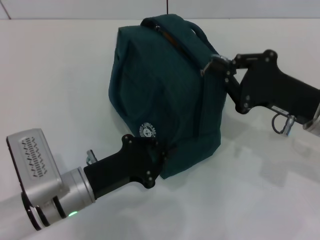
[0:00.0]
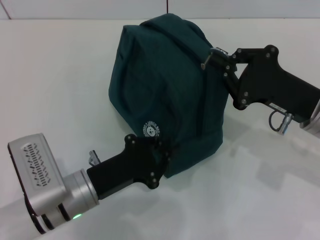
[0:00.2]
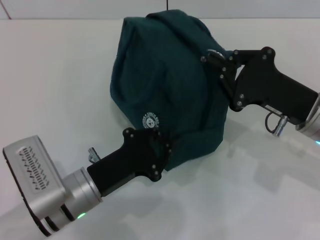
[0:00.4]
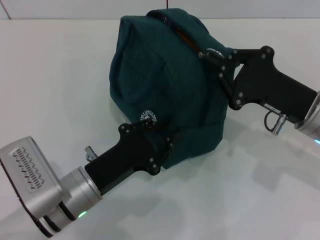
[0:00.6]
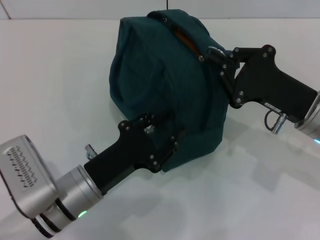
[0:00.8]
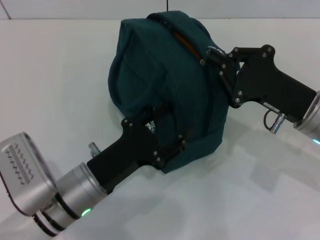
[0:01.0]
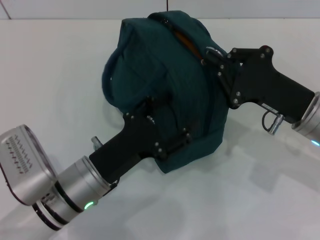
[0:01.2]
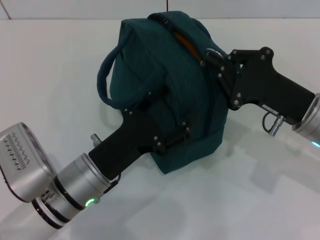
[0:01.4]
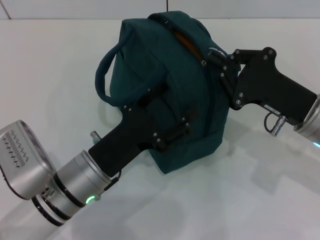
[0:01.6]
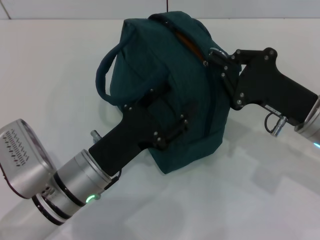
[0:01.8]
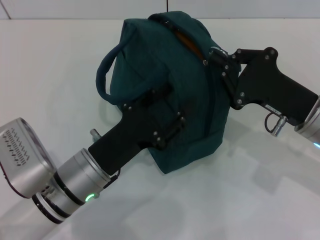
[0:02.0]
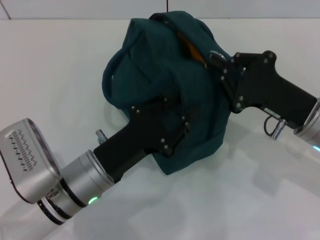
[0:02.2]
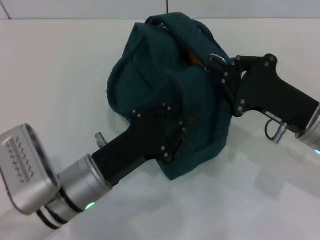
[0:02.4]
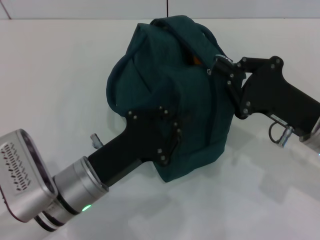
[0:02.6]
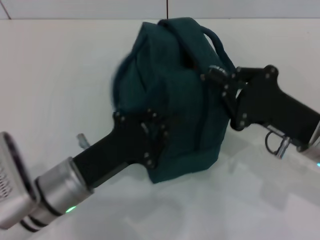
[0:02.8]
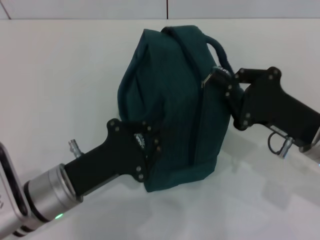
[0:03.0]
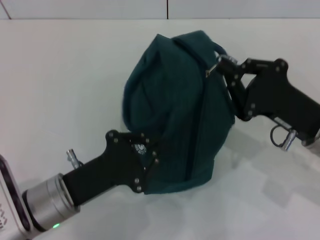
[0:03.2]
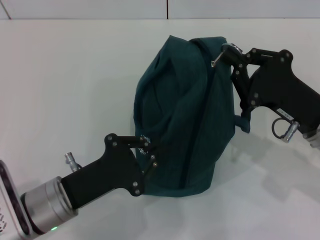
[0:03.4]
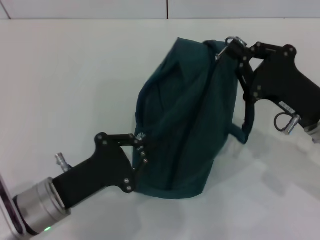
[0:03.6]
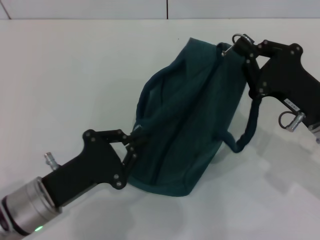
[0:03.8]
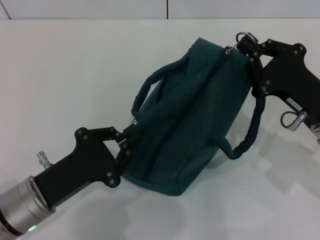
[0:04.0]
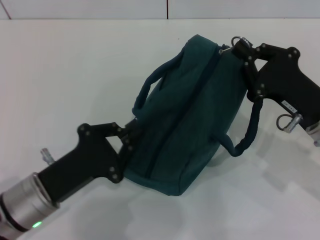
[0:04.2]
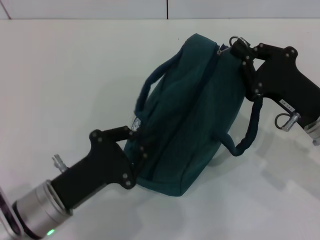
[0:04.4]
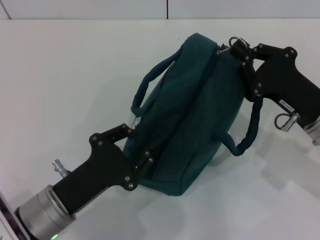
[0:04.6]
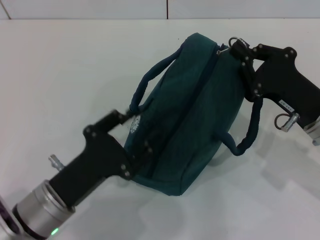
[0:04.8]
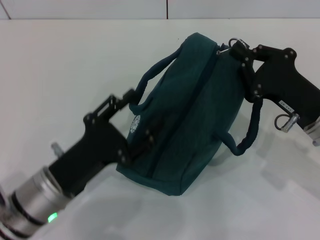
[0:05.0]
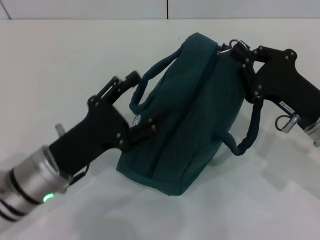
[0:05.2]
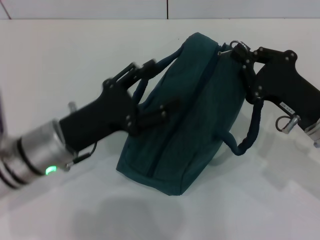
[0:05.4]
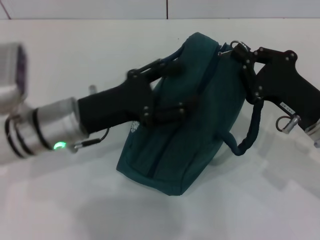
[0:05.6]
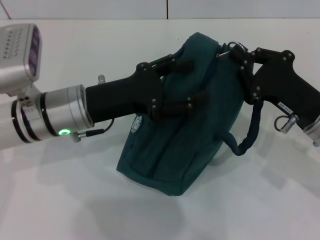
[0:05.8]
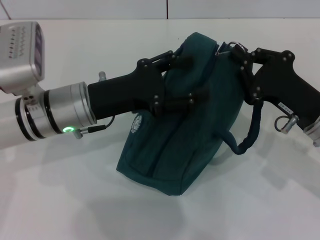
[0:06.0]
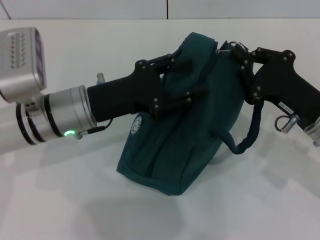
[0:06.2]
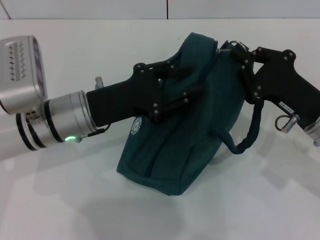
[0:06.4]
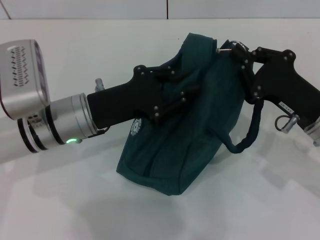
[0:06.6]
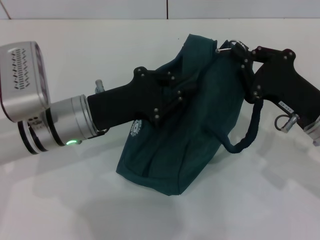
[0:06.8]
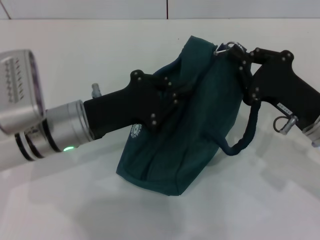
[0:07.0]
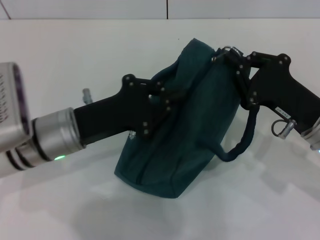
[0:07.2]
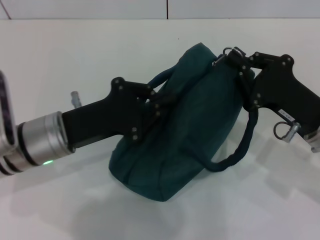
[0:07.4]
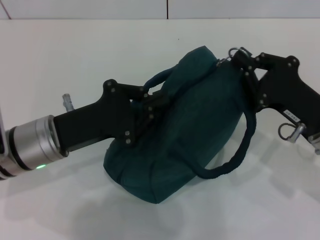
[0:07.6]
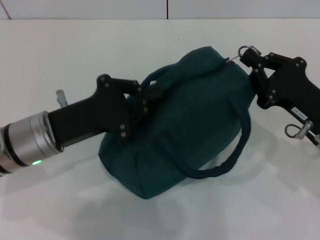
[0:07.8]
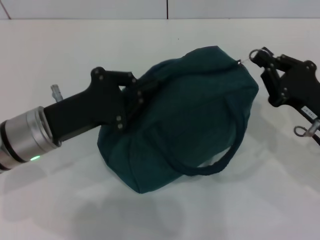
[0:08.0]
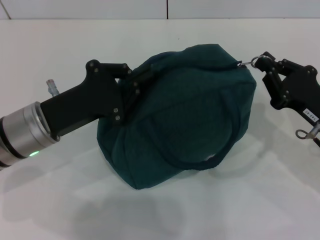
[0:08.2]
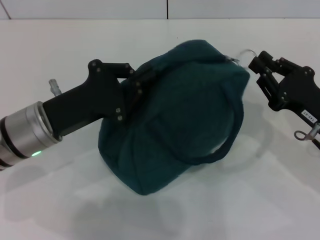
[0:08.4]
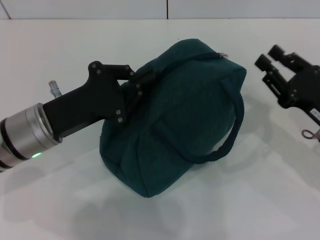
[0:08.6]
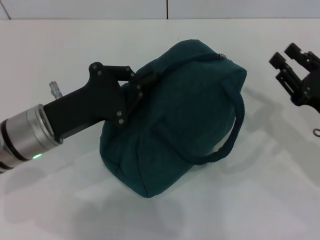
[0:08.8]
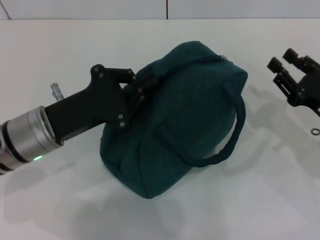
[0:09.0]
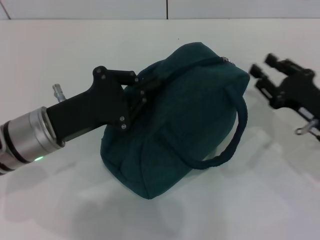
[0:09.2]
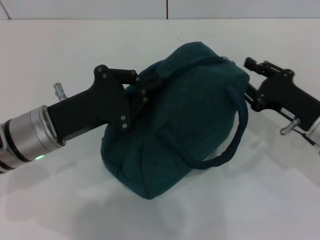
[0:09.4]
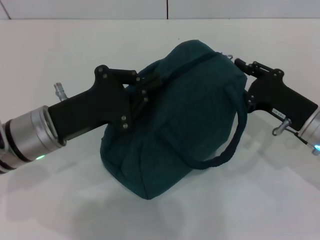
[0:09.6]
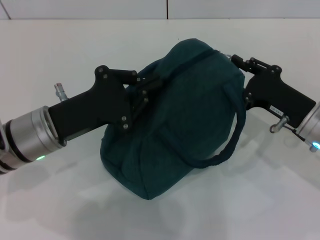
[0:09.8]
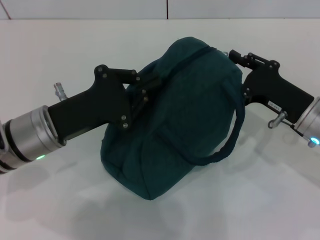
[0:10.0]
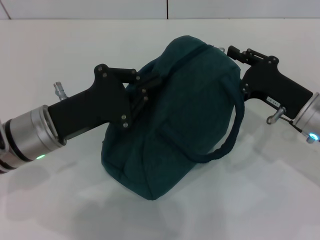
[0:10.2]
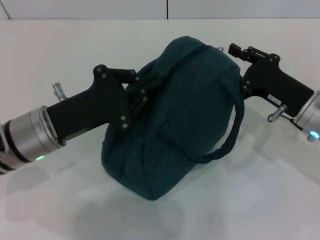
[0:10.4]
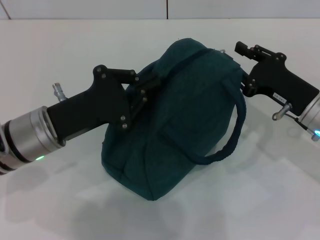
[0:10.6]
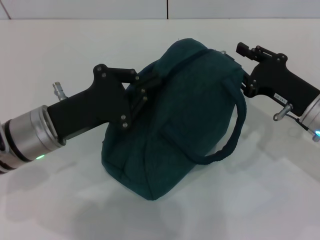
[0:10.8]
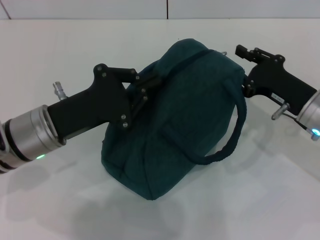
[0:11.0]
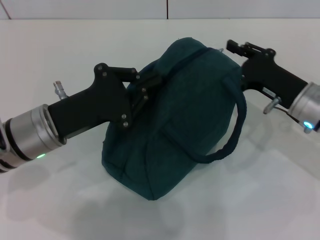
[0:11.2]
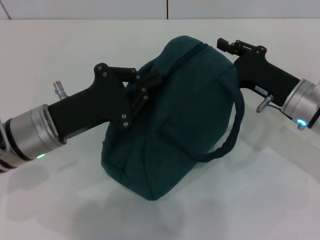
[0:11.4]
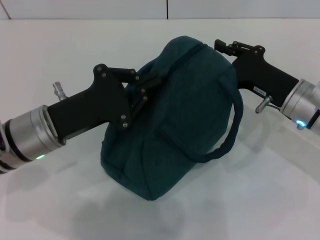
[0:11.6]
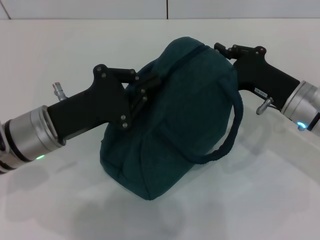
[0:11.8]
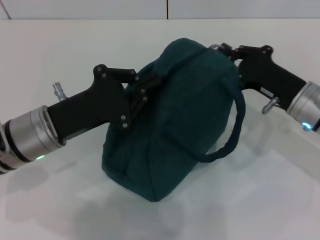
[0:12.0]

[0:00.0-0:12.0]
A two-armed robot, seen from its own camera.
Step, 0:00.0 to 0:09.8: Zip up the lunch bag with your right hand.
0:00.0 to 0:01.6: The left gripper opens up.
0:01.6 to 0:03.0: The left gripper closes its fingers.
0:04.4 to 0:06.0: The left gripper moves forward and upward, some 15 cm, and opens up.
0:06.0 to 0:07.6: The left gripper shifts by approximately 5 cm, and closes its fingers.
0:07.6 to 0:09.0: The right gripper moves to the right, some 5 cm, and opens up.
0:09.0 to 0:10.4: The right gripper goes approximately 5 cm to the left.
0:10.4 to 0:12.0: There are only small adjustments of the grippers.

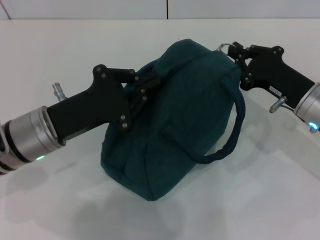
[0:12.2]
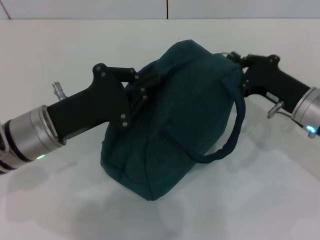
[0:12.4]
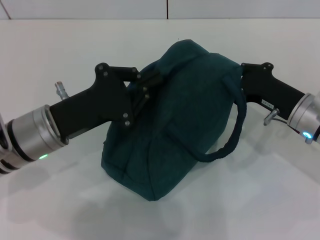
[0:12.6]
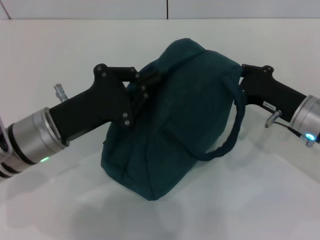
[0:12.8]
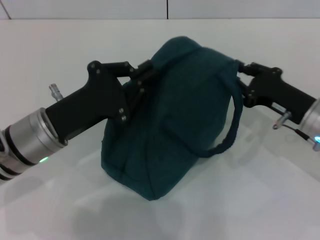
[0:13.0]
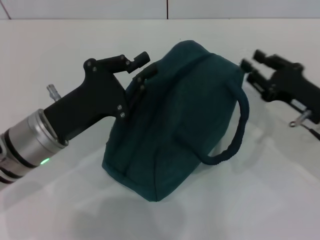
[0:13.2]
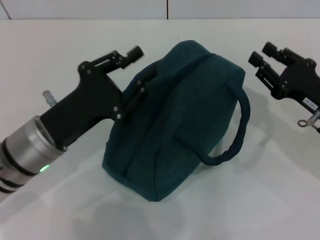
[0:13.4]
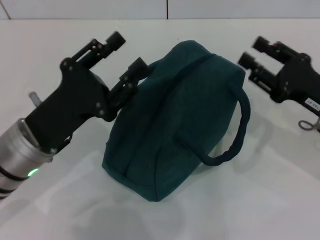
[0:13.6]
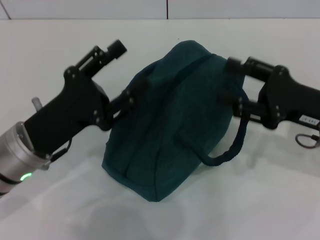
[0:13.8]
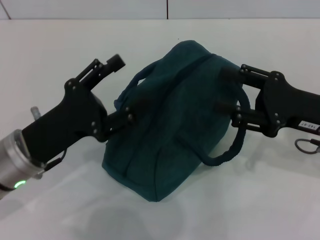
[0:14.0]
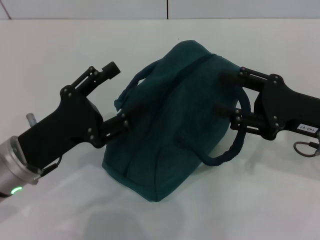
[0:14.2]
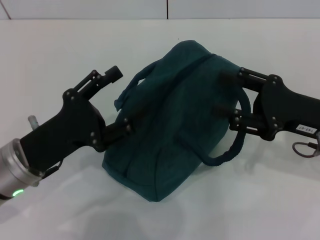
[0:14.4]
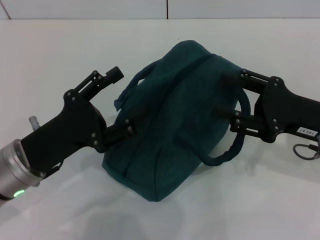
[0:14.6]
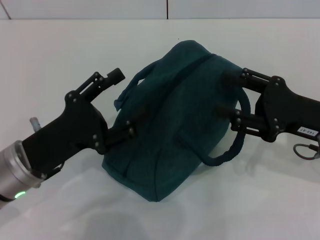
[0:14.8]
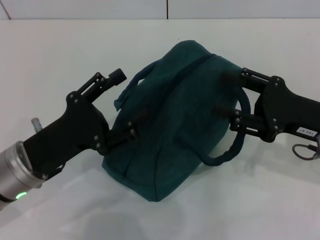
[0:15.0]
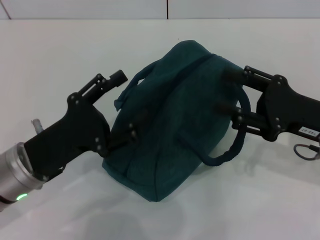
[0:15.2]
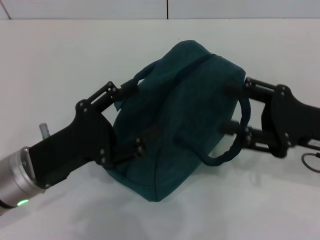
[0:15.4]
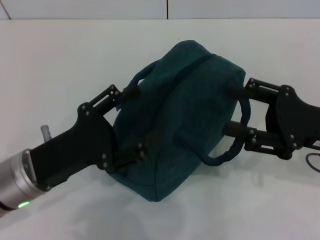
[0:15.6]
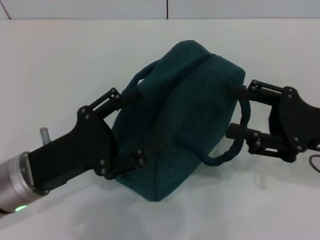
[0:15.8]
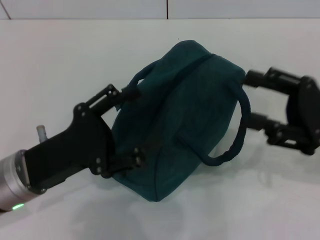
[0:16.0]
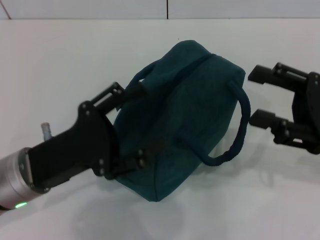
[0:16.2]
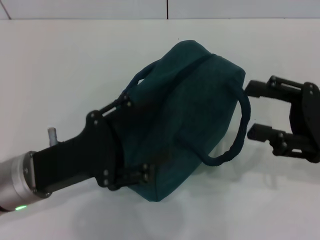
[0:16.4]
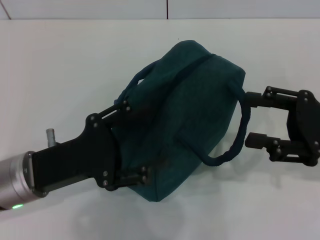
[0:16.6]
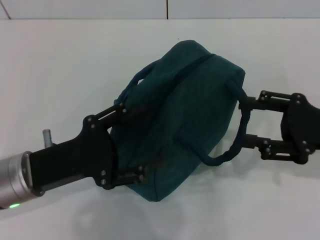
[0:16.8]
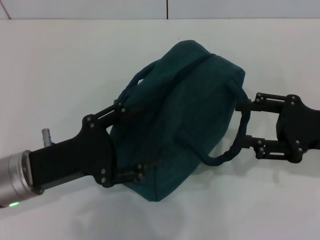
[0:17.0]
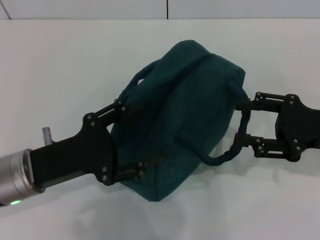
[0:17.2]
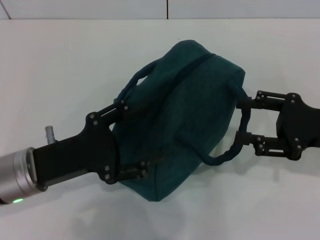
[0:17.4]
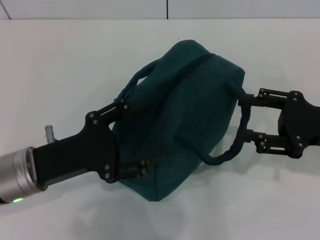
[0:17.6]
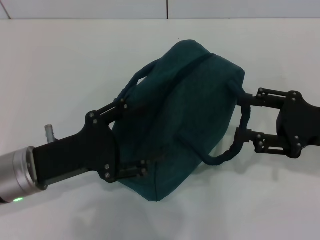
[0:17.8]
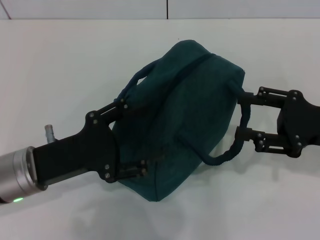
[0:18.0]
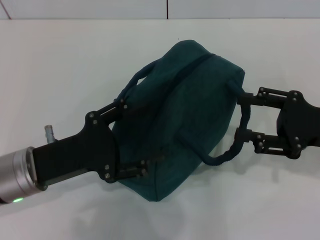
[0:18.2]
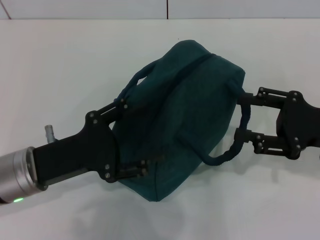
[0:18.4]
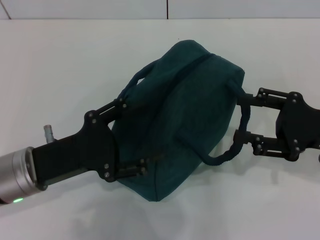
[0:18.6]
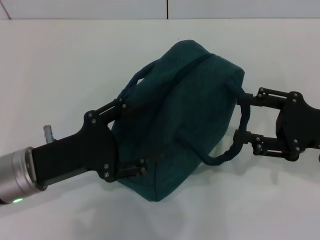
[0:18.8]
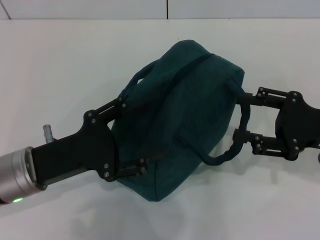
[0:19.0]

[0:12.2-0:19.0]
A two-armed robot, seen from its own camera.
0:12.2 to 0:13.6: The right gripper moves roughly 5 cm, and opens its fingers.
0:13.6 to 0:15.0: The left gripper opens up.
0:15.0 to 0:17.6: There are only small adjustments of the grippers.
0:17.6 to 0:19.0: Neither gripper changes place.
